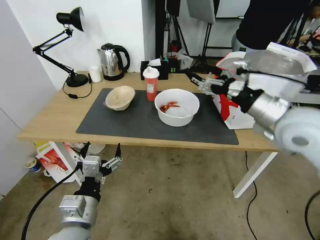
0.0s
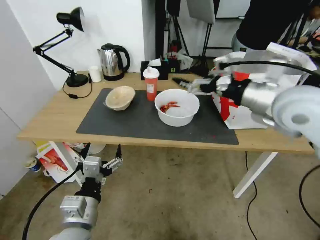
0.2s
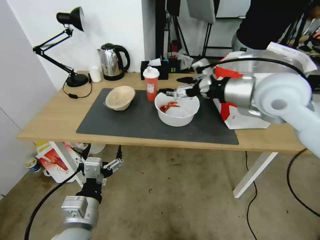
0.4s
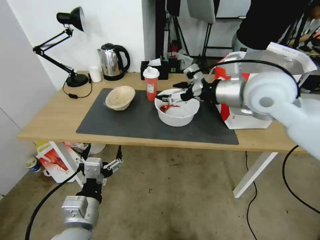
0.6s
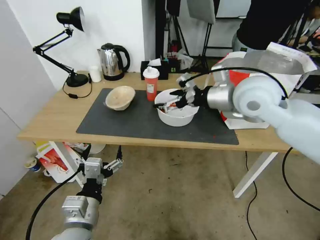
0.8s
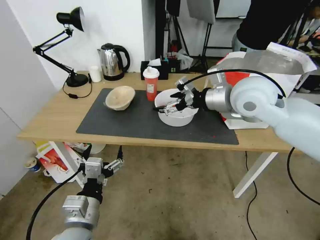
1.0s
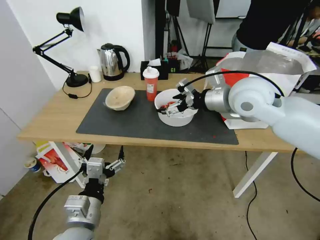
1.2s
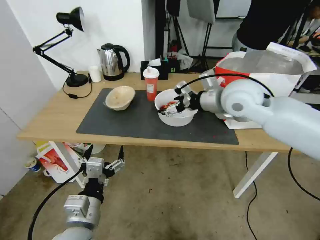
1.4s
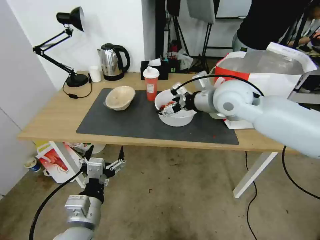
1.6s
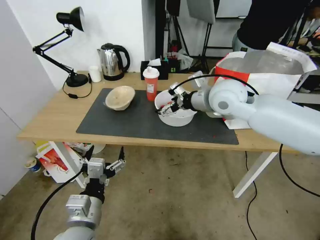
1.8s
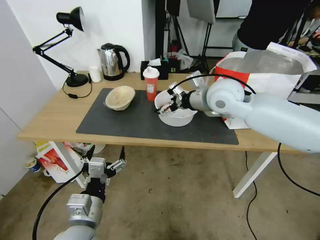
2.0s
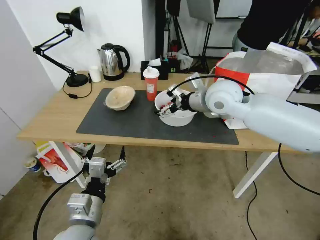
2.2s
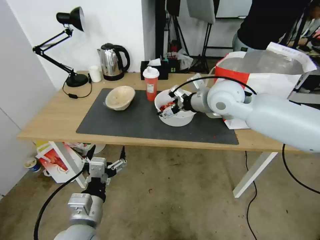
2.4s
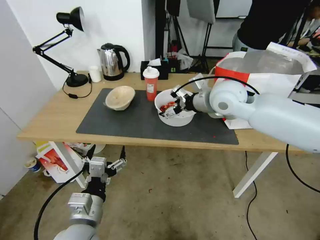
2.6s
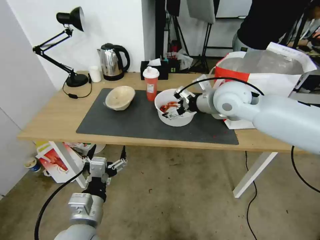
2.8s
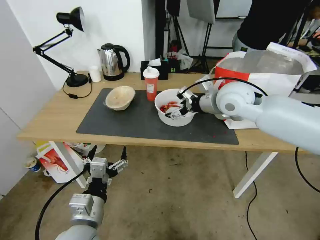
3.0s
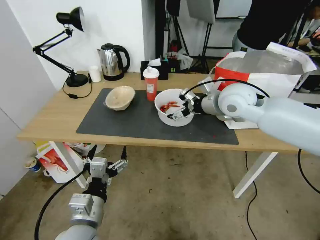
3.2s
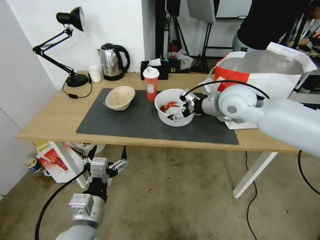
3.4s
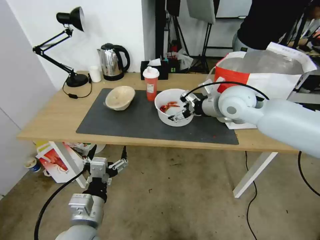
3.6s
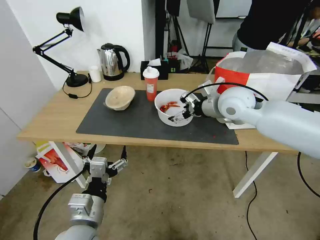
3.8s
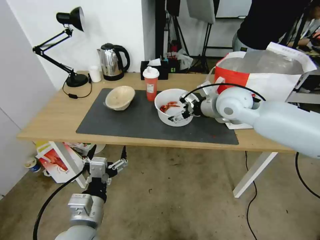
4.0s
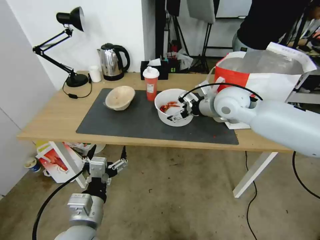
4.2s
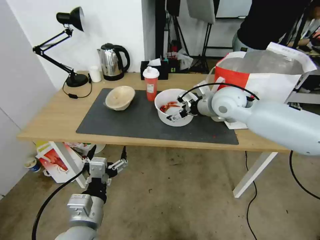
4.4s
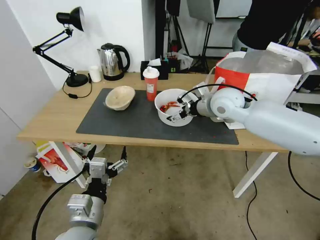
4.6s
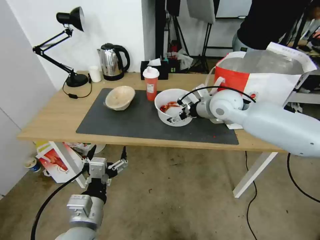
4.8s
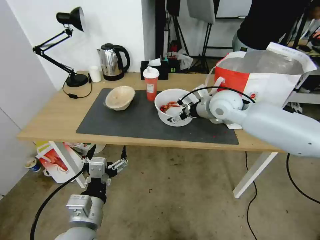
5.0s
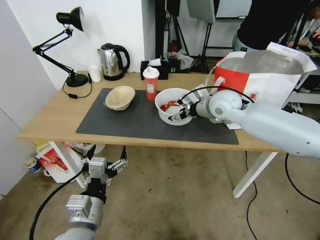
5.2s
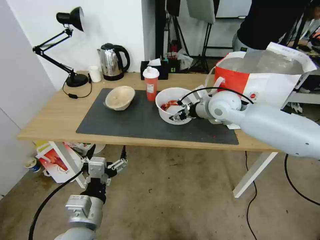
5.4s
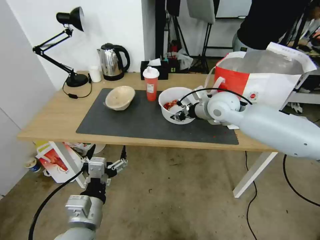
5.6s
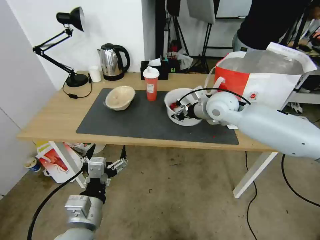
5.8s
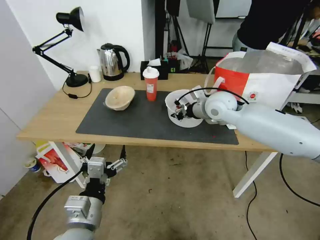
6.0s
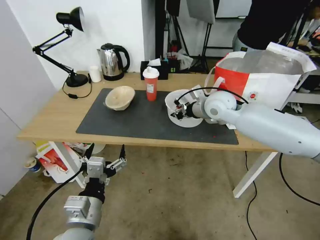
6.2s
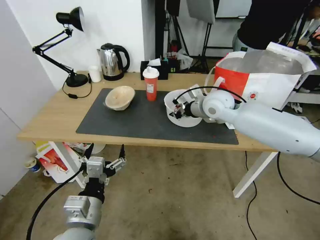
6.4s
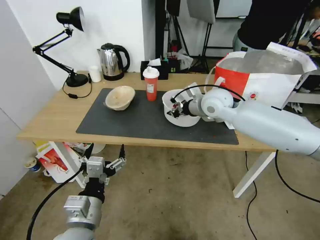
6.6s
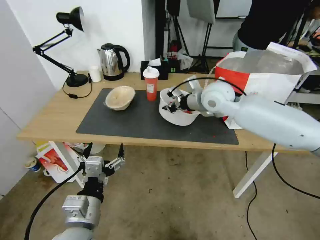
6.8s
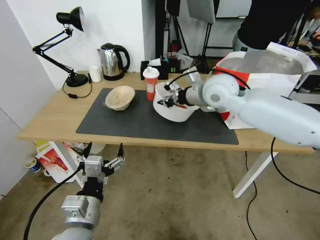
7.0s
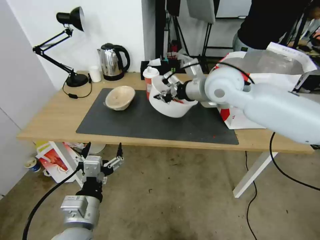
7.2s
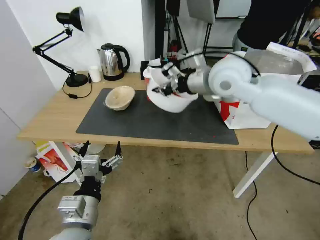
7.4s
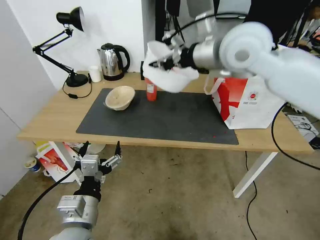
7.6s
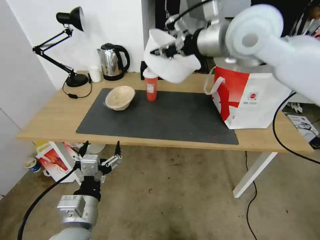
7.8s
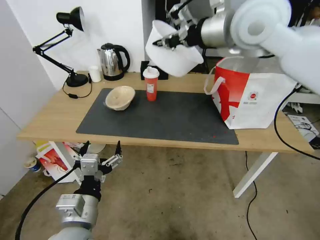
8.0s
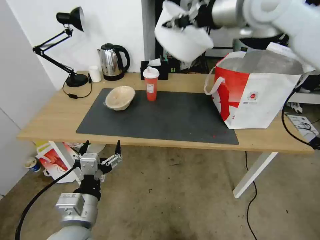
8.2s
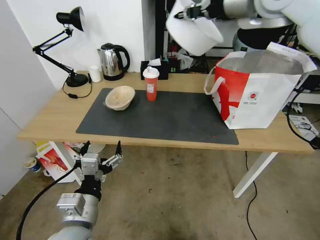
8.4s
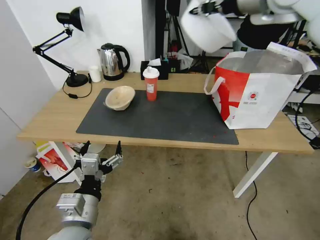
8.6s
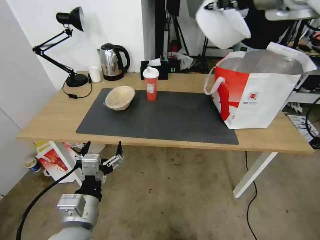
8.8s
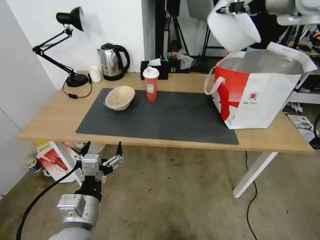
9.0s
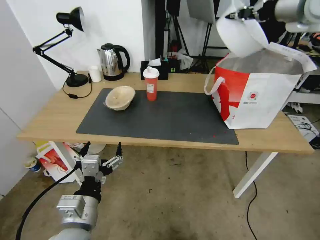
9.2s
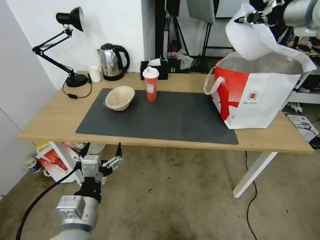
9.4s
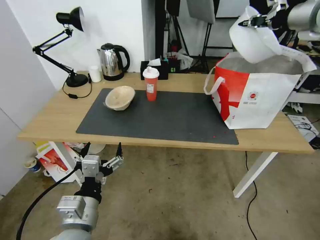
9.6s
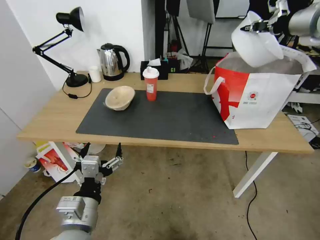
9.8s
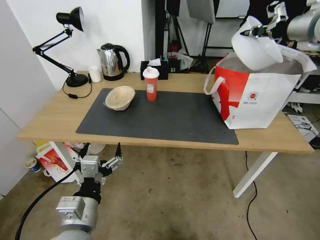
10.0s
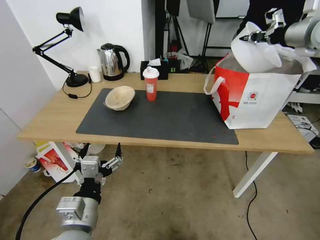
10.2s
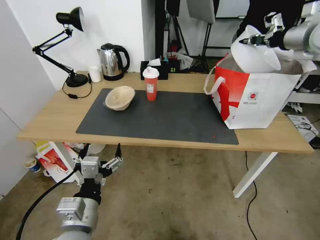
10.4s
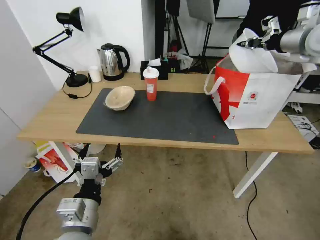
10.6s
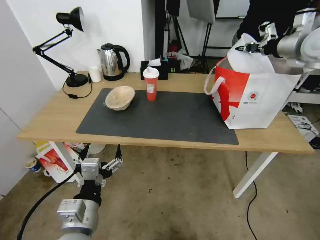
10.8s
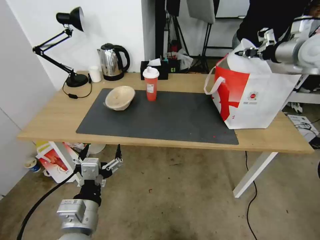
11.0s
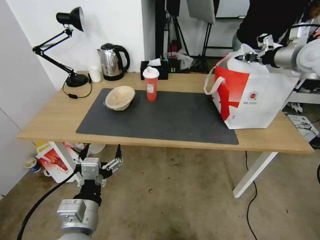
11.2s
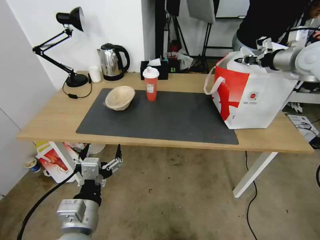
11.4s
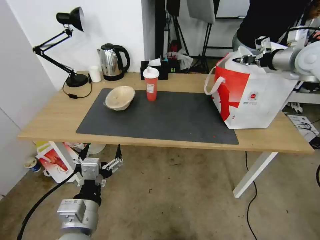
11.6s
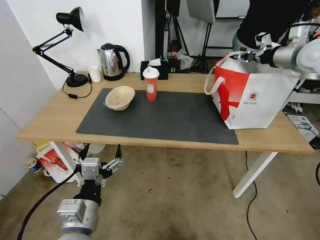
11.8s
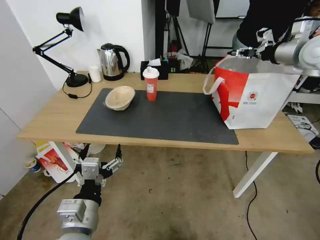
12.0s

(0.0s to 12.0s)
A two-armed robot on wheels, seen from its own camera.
Task of the whole recording: Pick up the trash from the table and place it into the takeout bag.
0.0s - 1.6s: The right gripper shifts roughly 15 cm forward and to the left.
1.6s - 4.4s: The grippers stay close to where they were, moving slightly.
4.4s - 6.0s: The right gripper closes up.
6.0s - 7.6s: The right gripper goes roughly 20 cm upward.
7.6s - 9.0s: The right gripper goes about 20 cm to the right, upward and forward.
9.0s - 10.4s: The right gripper heads to the right and downward, covering approximately 10 cm.
10.4s - 12.0s: The right gripper opens its fingers.

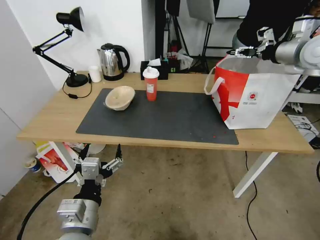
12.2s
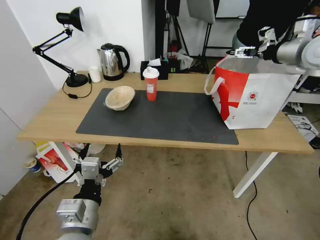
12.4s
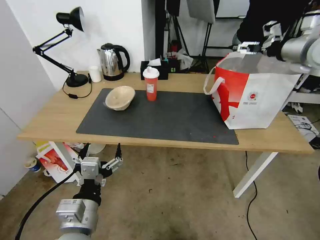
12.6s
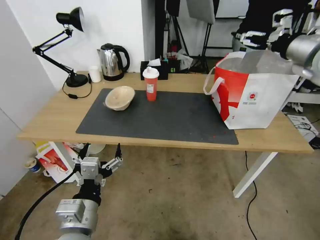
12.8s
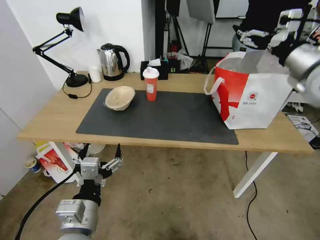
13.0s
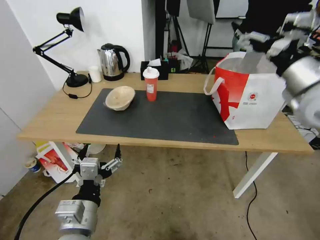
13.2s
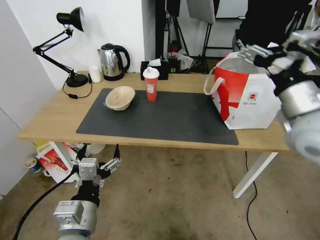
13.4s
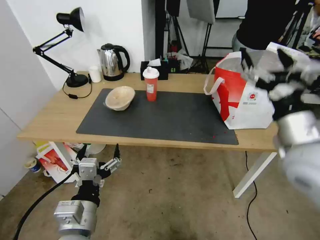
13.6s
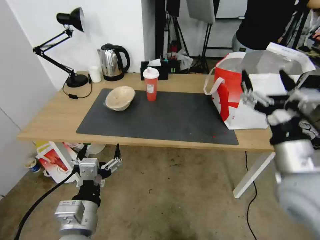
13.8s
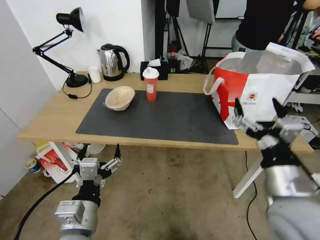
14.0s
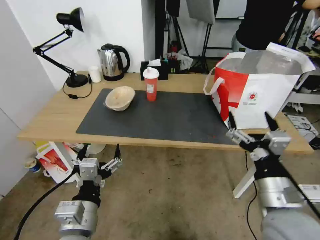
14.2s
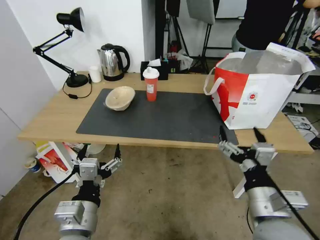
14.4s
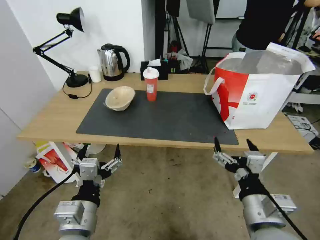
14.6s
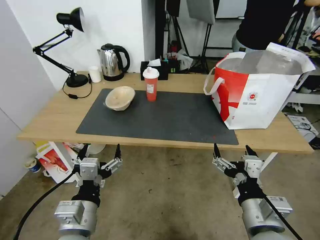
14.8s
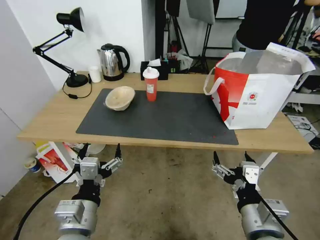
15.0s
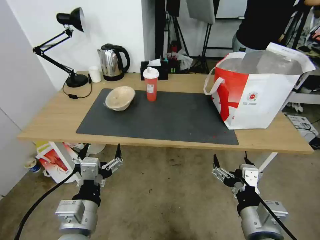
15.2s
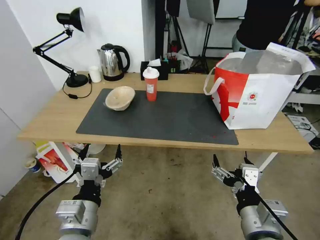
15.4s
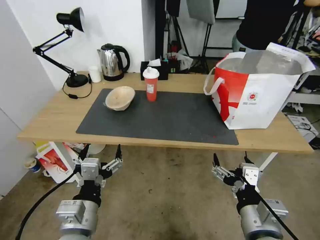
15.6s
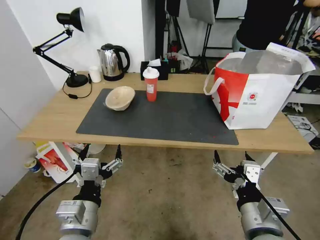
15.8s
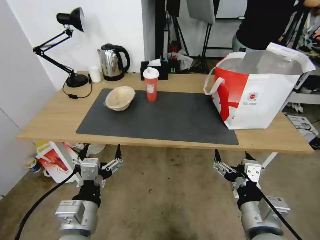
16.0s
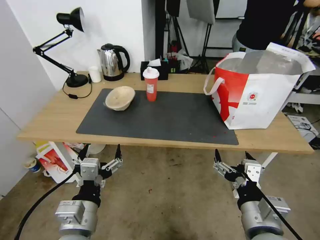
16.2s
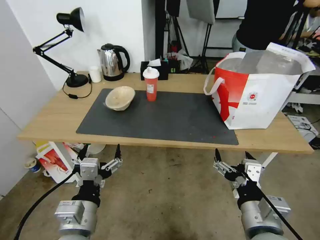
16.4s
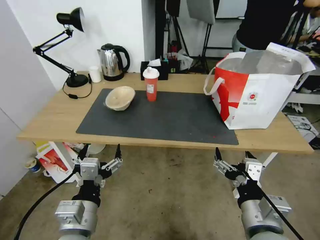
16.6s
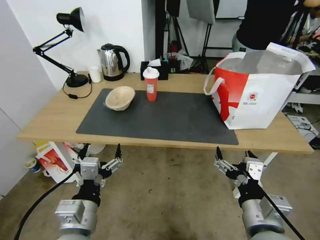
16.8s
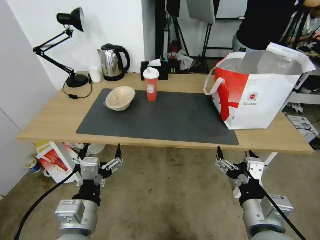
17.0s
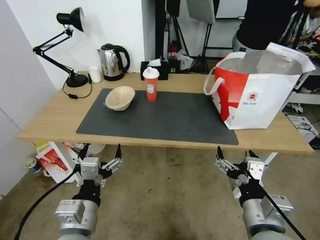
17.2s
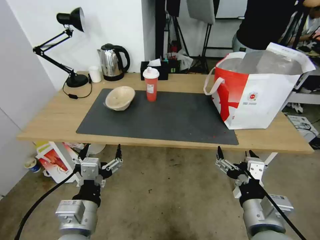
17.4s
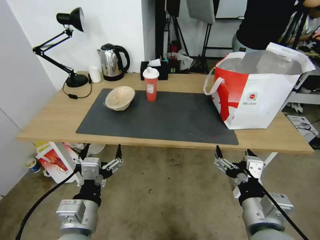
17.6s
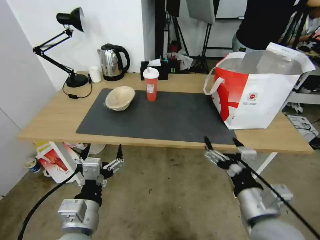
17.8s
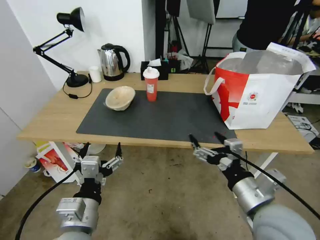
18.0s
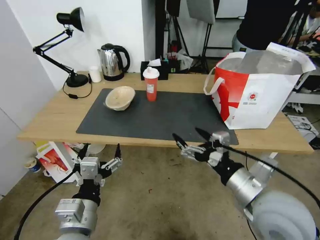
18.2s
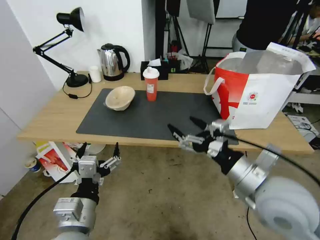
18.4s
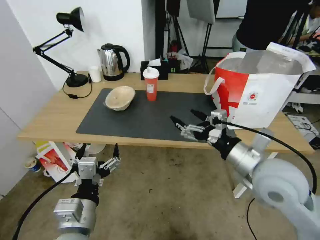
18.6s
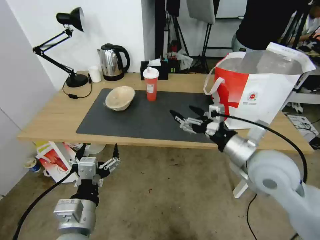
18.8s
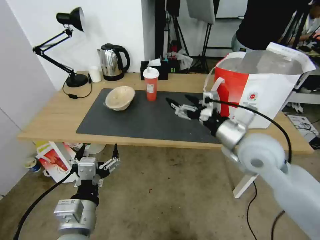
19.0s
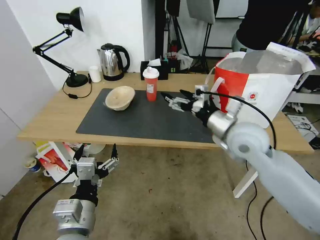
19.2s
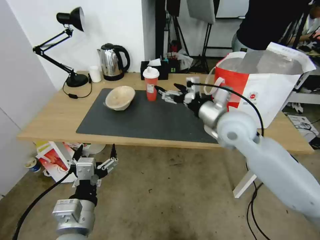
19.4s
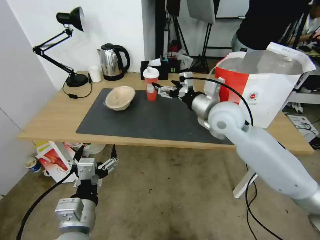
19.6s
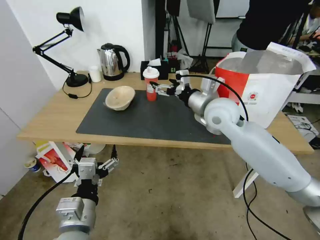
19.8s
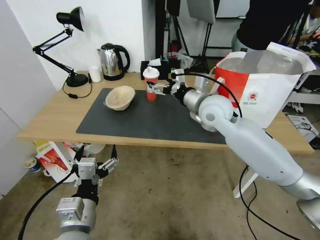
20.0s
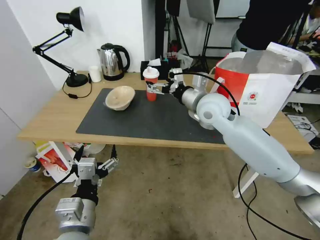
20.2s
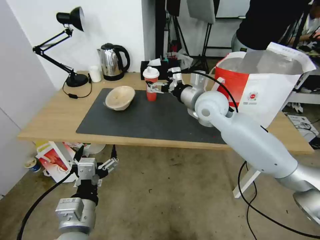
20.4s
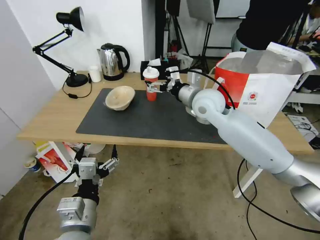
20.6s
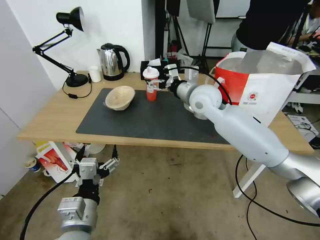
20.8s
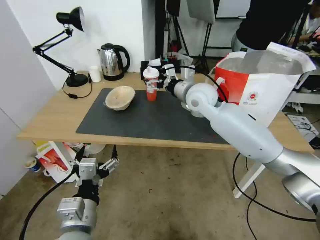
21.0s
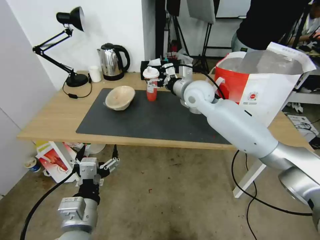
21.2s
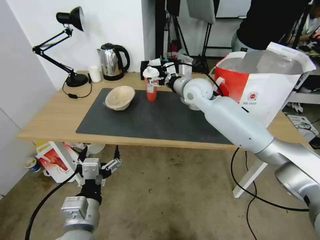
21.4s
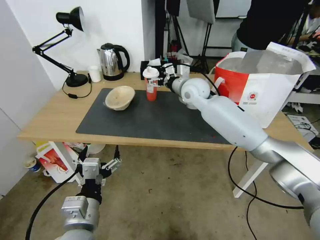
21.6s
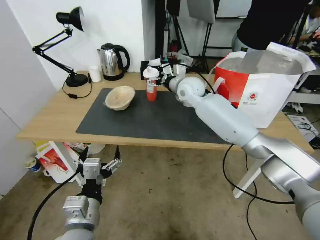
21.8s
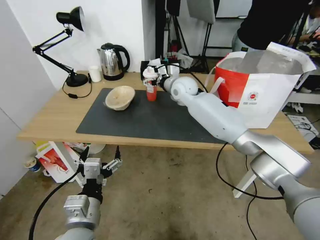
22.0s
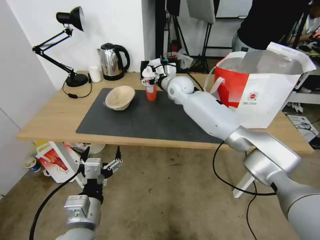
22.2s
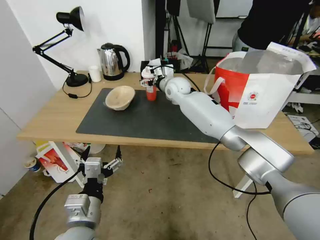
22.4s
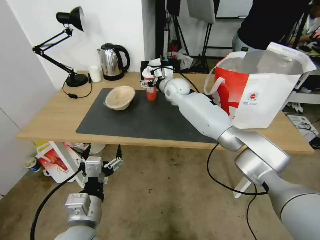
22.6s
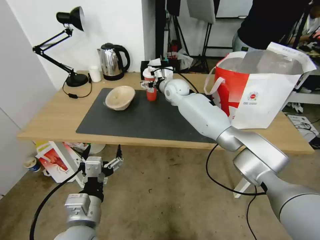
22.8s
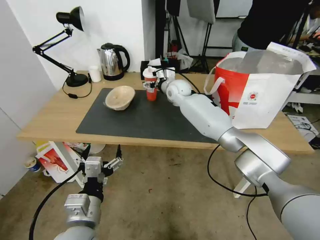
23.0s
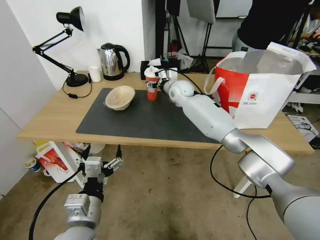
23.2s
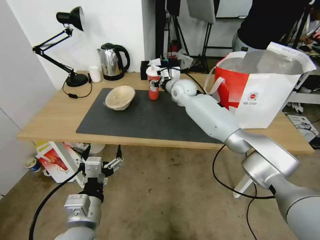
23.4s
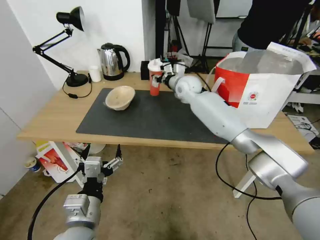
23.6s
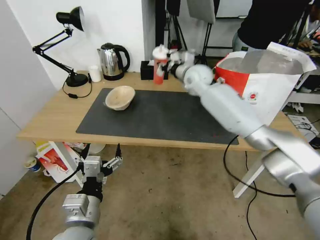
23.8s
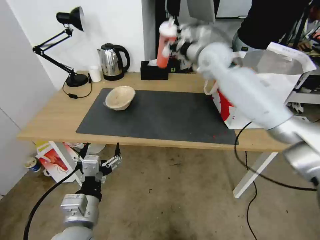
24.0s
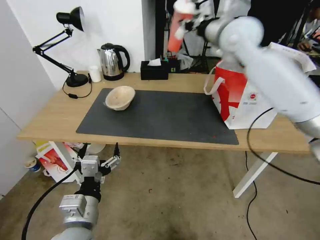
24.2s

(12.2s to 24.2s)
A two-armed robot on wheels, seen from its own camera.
Task of the whole recording: Pick up the trash from the table and place it into the takeout bag.
12.2s - 13.8s: The right gripper moves backward, downward and to the left, about 30 cm.
13.8s - 15.2s: The right gripper goes roughly 20 cm backward, downward and to the left.
15.2s - 16.6s: Both grippers stay about where they are.
16.6s - 18.2s: The right gripper travels forward and upward by approximately 10 cm.
18.2s - 19.8s: The right gripper heads forward, covering approximately 25 cm.
19.8s - 21.2s: The right gripper is displaced forward by roughly 10 cm.
21.2s - 22.6s: The right gripper goes approximately 15 cm forward, to the left and downward.
22.6s - 24.2s: The right gripper travels upward and to the right by roughly 25 cm, and closes its fingers.
